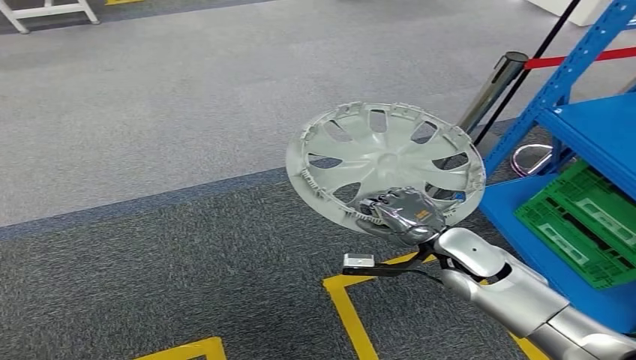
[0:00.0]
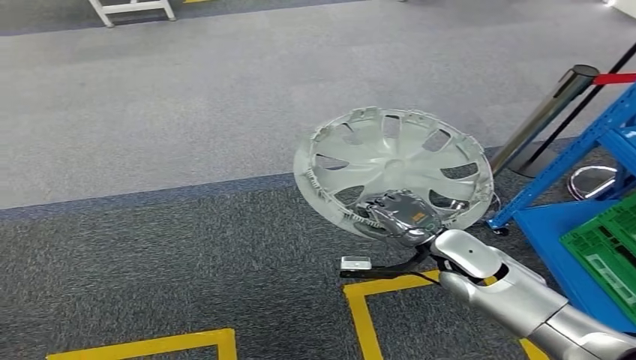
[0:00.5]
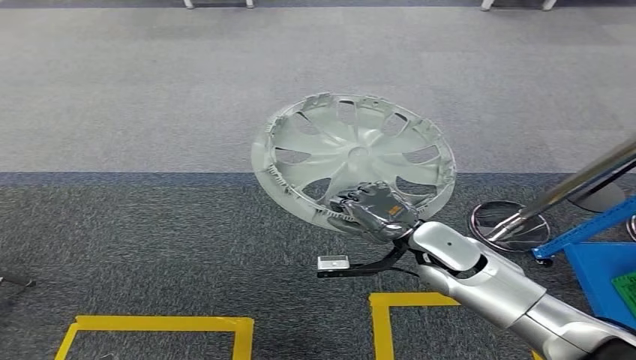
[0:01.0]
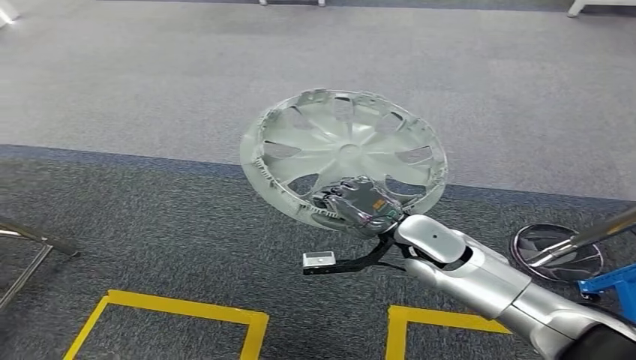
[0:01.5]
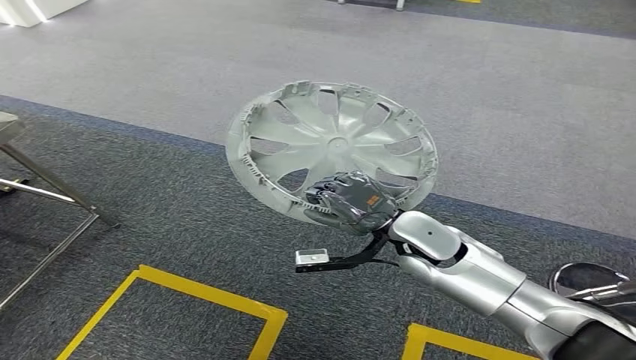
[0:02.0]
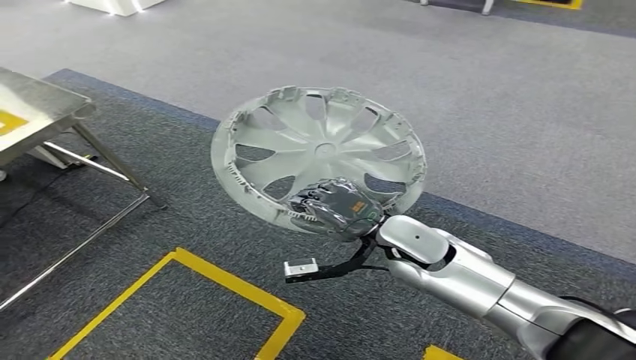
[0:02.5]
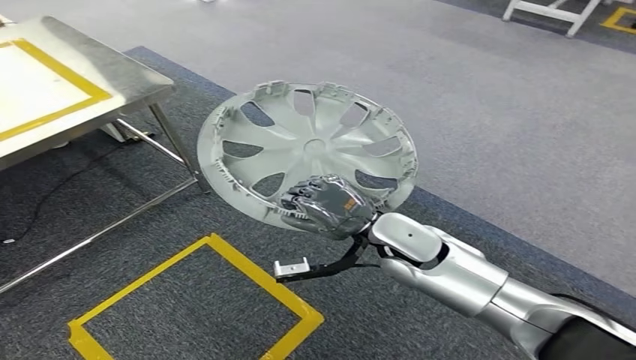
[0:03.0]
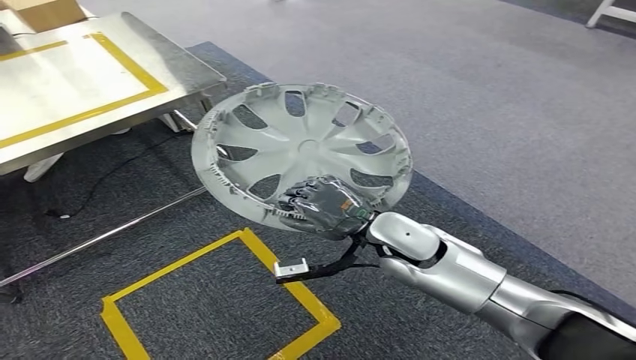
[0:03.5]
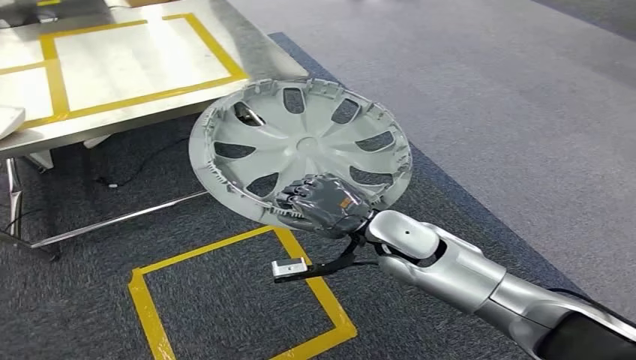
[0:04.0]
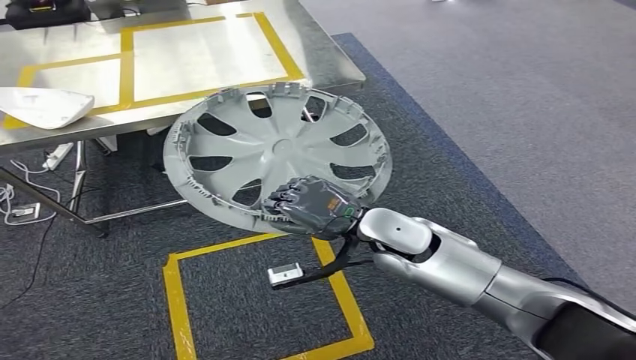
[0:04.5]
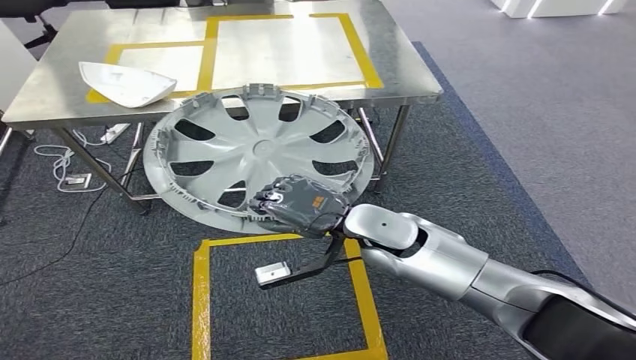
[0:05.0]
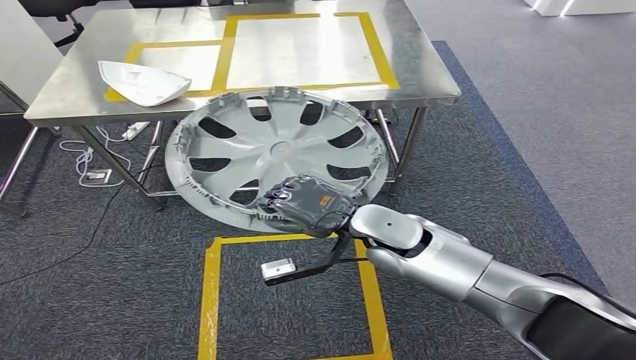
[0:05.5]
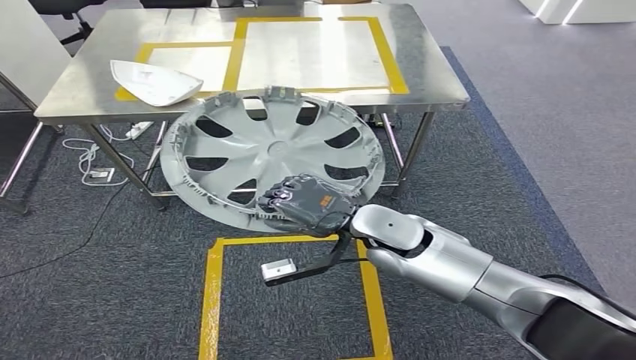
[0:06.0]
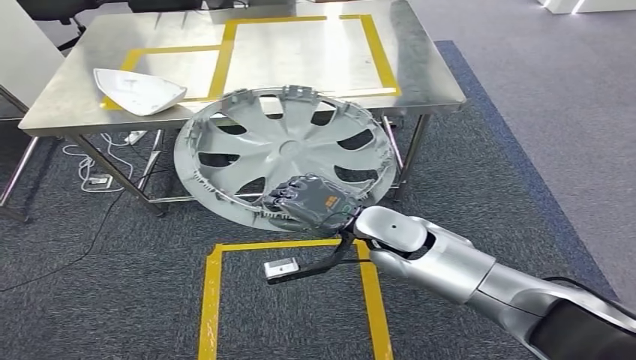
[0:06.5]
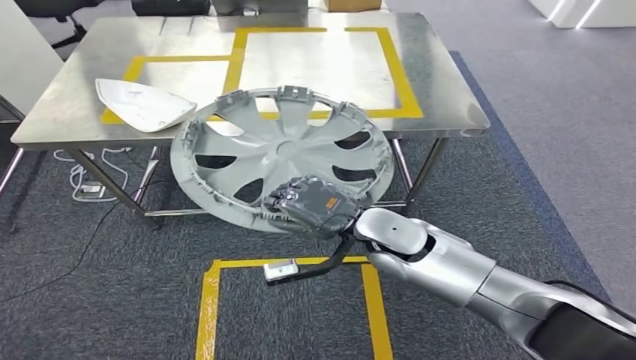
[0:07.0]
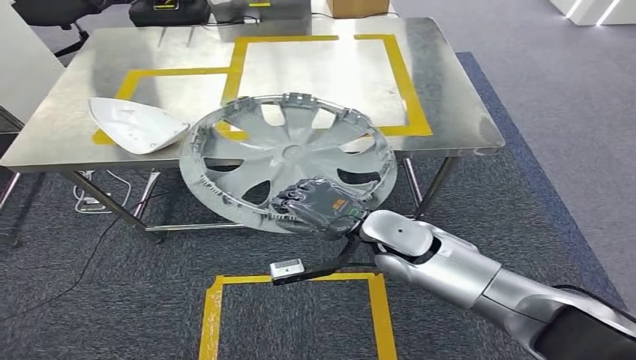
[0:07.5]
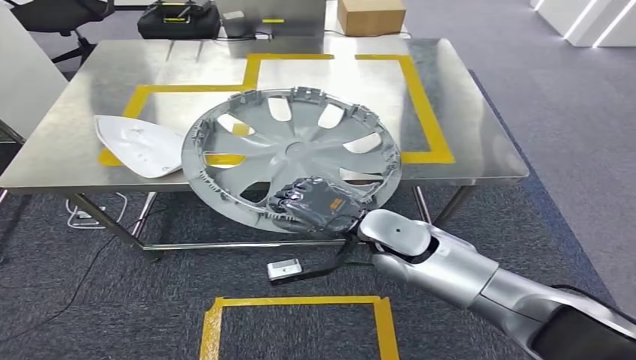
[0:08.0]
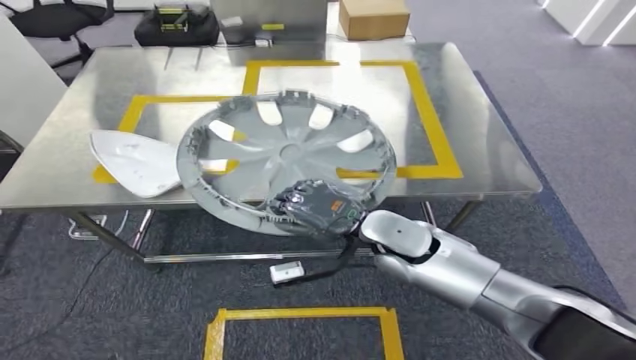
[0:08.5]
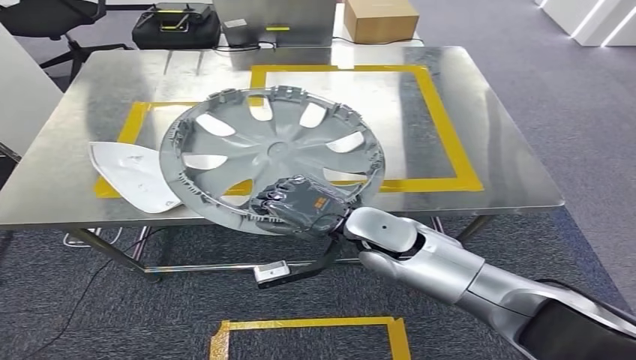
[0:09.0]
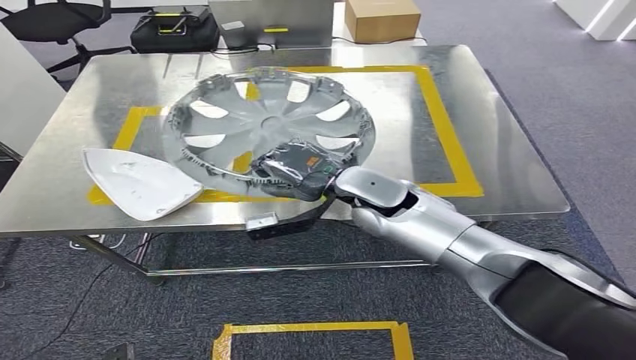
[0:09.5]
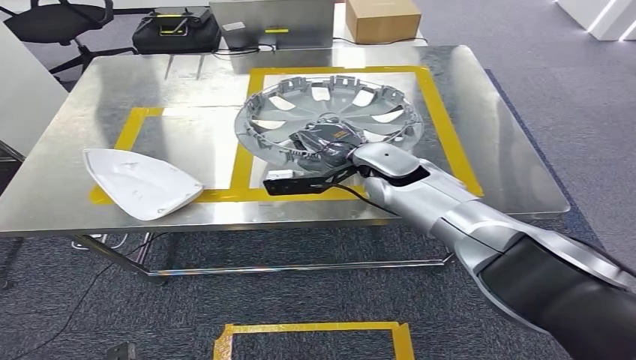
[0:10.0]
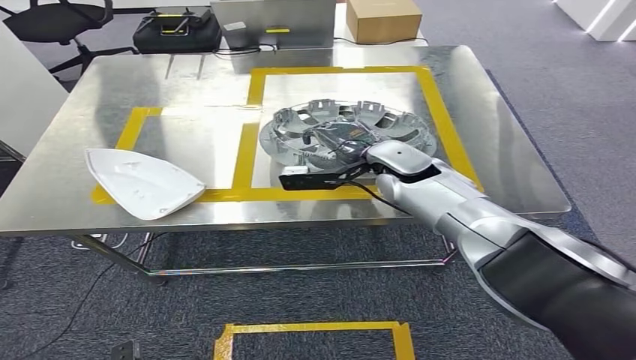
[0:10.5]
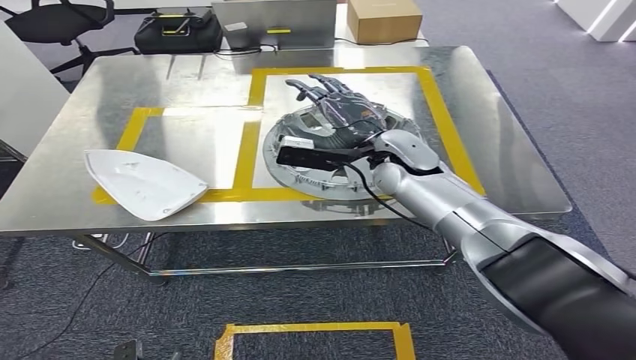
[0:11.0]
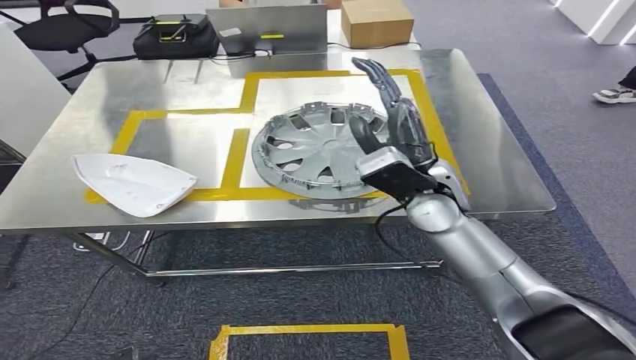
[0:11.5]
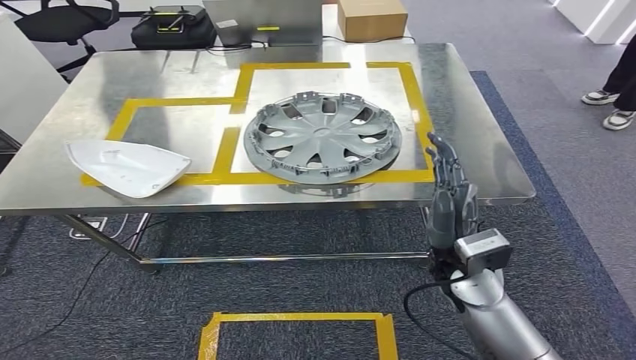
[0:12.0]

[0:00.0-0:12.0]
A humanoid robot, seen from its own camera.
Step, 0:00.0 to 0:04.5: Move the small component to the workbench.

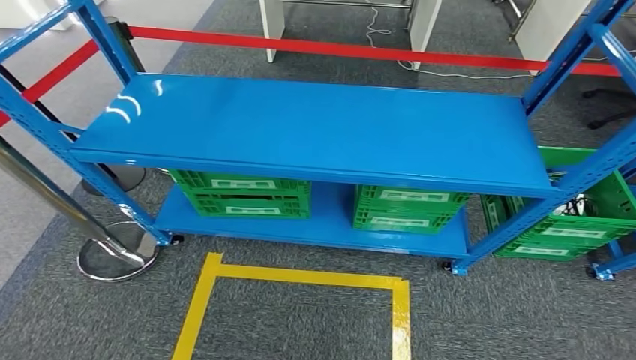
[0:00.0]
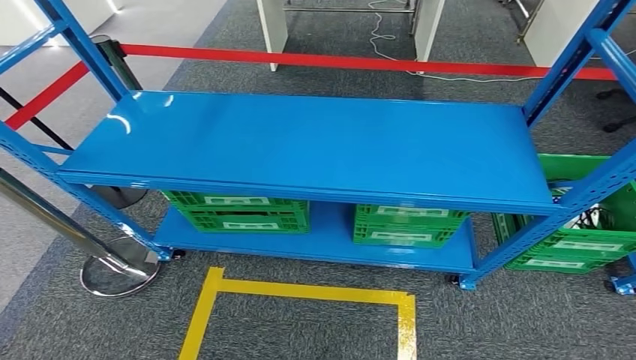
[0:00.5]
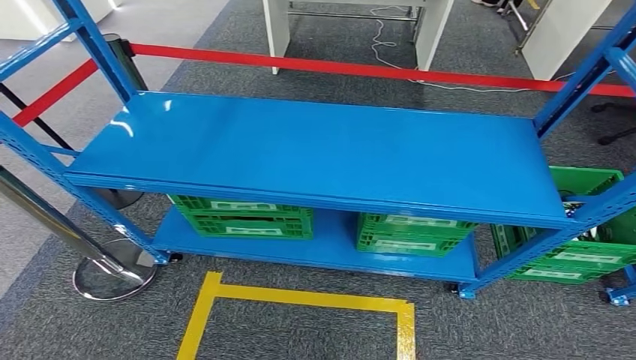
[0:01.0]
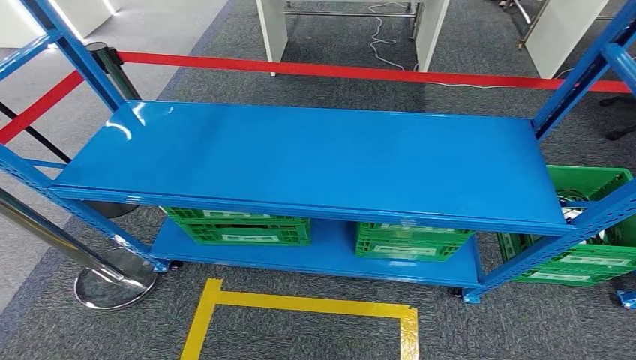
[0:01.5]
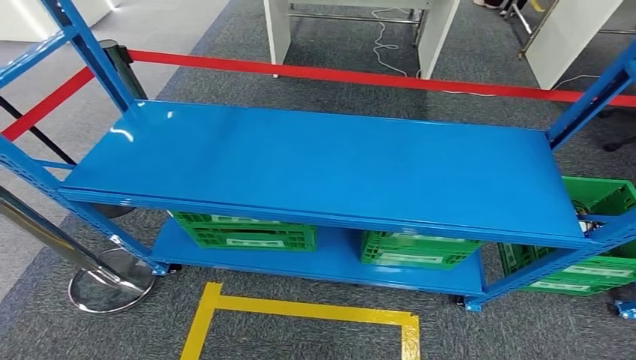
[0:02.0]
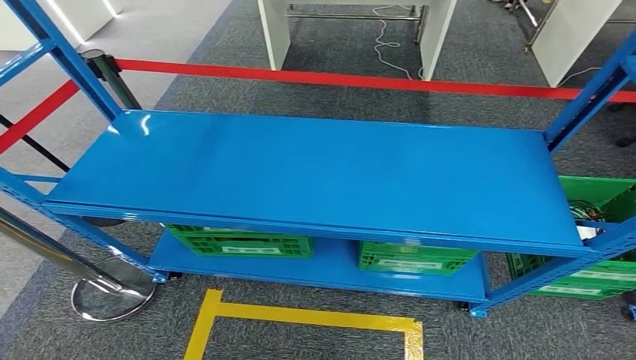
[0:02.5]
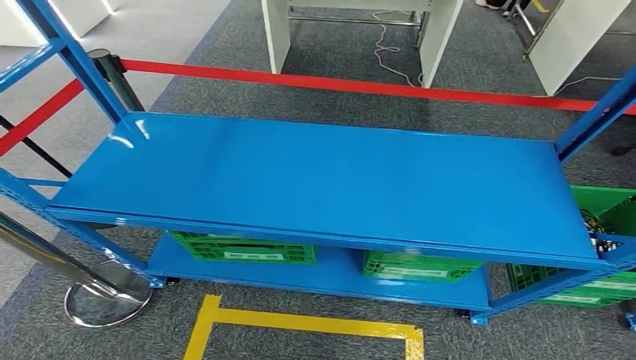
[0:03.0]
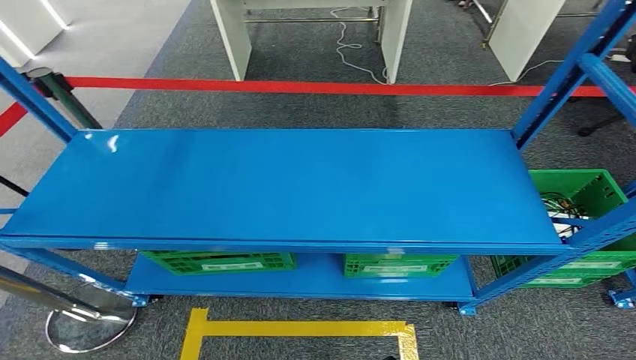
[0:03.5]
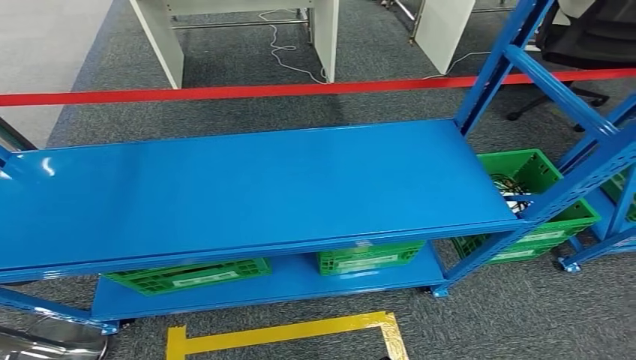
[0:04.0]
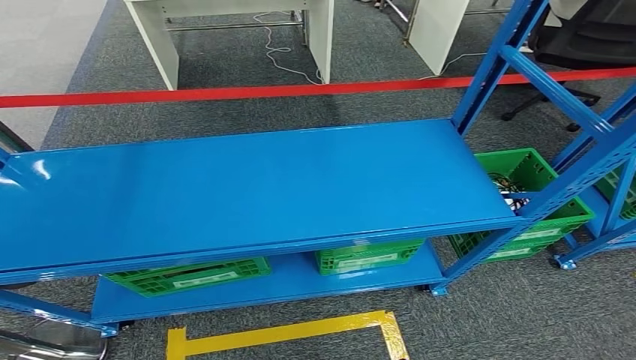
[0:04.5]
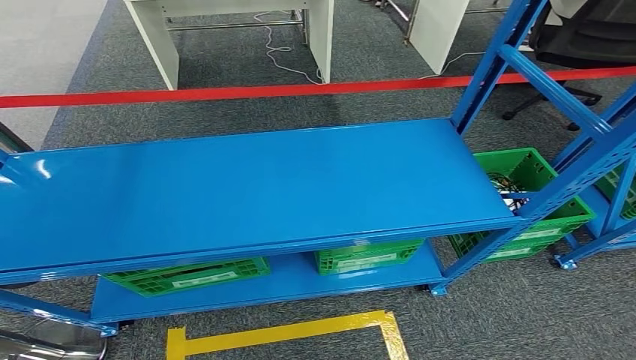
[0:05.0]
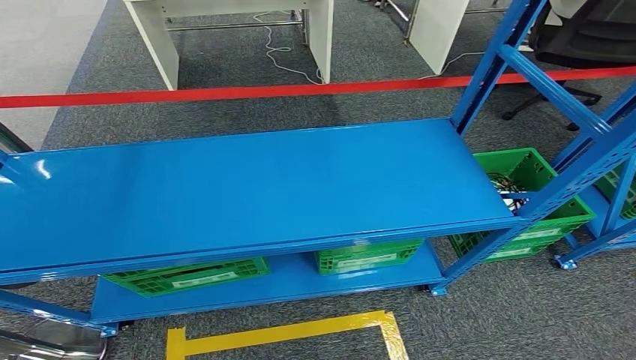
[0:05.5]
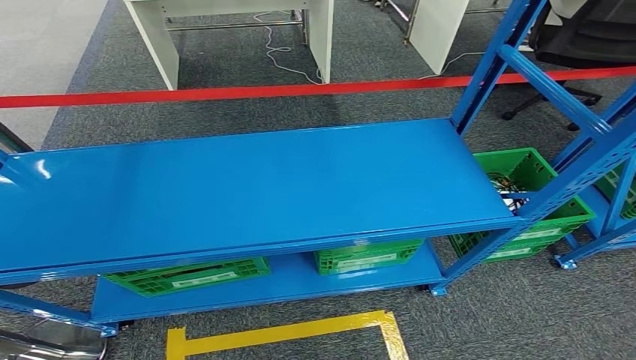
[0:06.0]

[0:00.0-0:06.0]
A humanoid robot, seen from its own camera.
Step, 0:00.0 to 0:06.0: Move to the initial position at the workbench.
0:04.0 to 0:06.0: The left hand changes place by roughly 5 cm. The right hand travels to the right by about 5 cm.

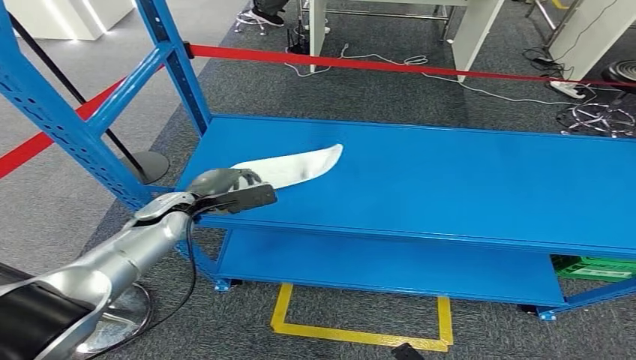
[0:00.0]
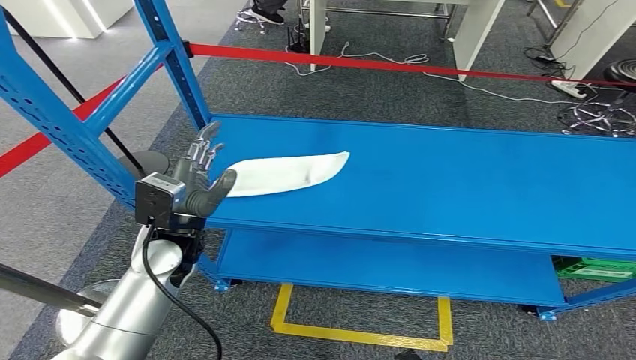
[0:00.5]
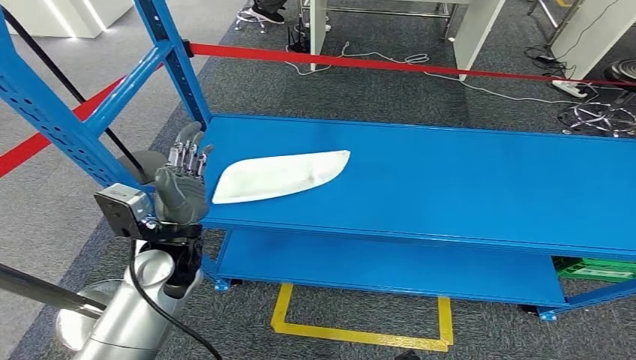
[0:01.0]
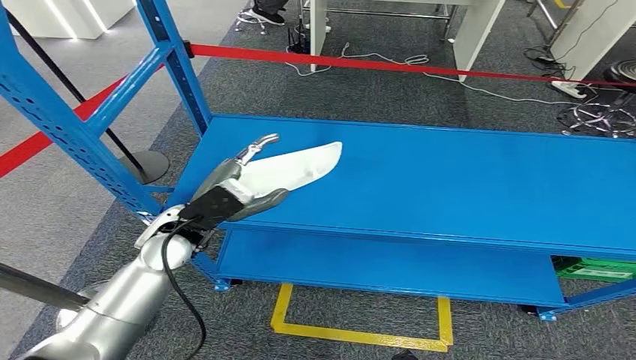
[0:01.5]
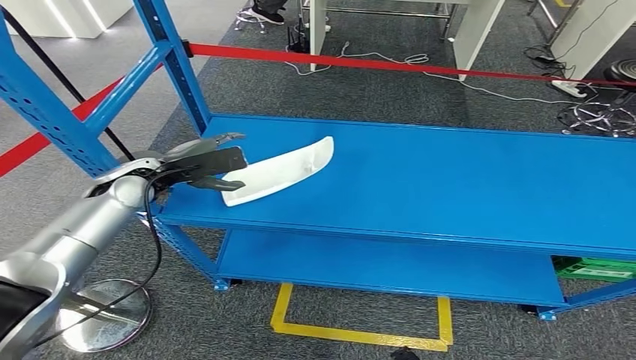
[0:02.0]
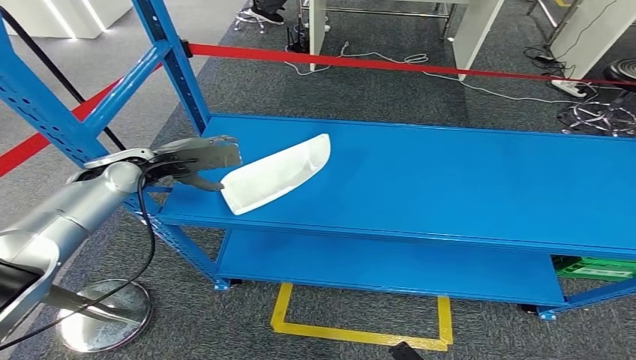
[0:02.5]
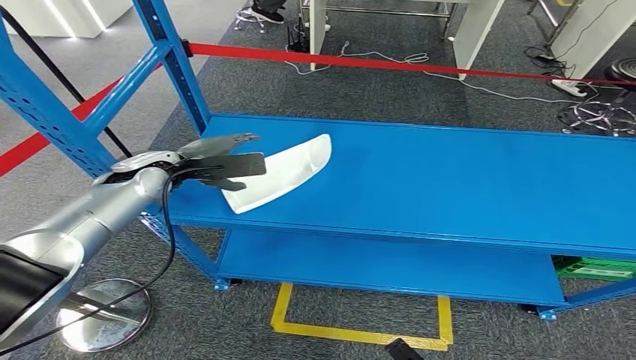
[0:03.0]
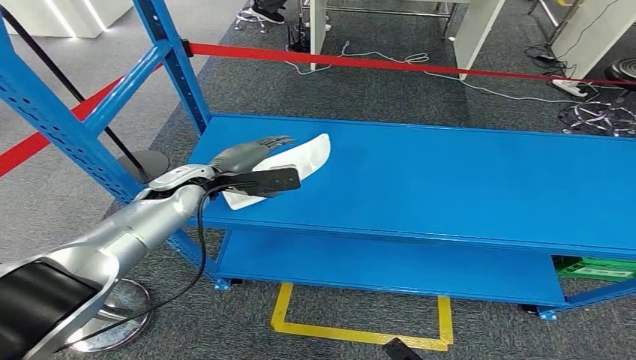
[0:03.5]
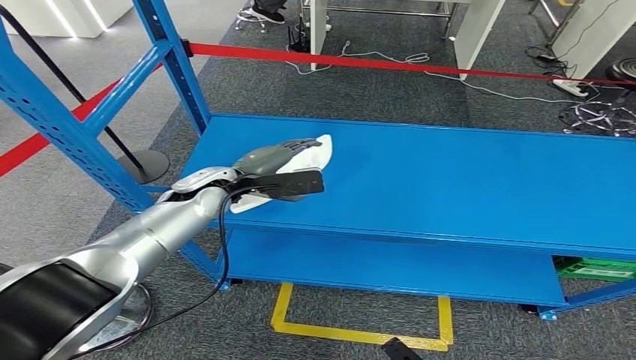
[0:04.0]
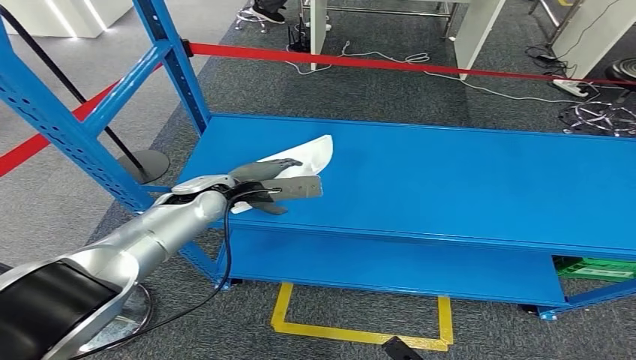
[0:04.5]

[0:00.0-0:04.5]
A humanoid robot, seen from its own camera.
0:00.0 to 0:02.0: The left hand heads upward, covering about 10 cm, and moves about 10 cm backward and comes back.
0:02.0 to 0:04.5: The left hand heads to the right, covering roughly 10 cm.
